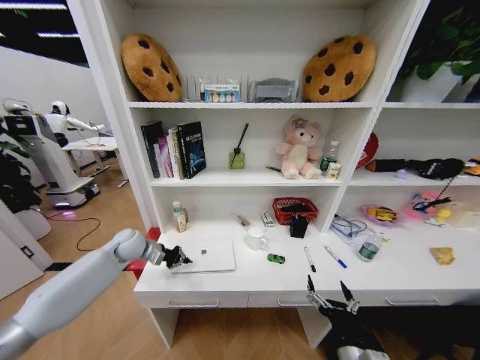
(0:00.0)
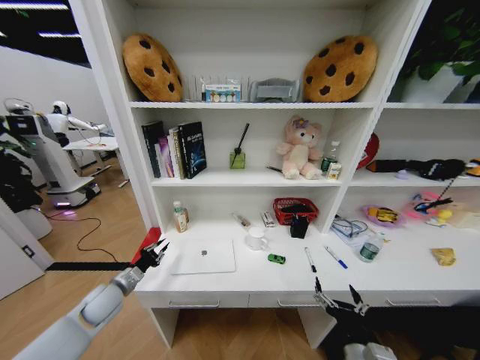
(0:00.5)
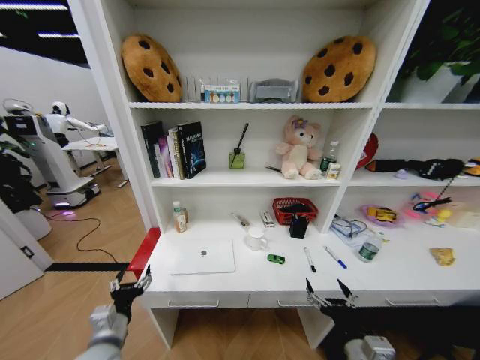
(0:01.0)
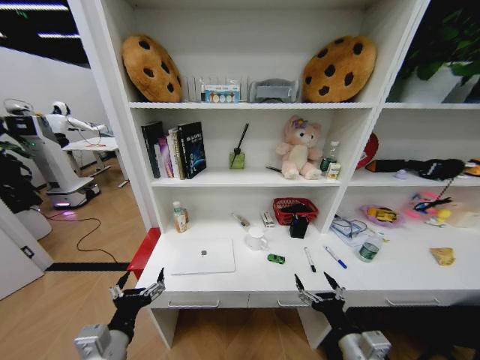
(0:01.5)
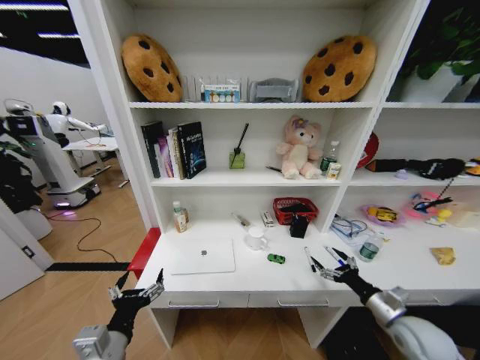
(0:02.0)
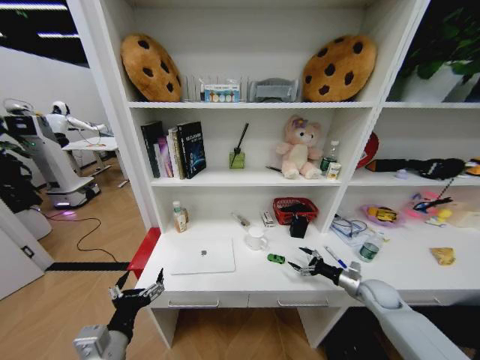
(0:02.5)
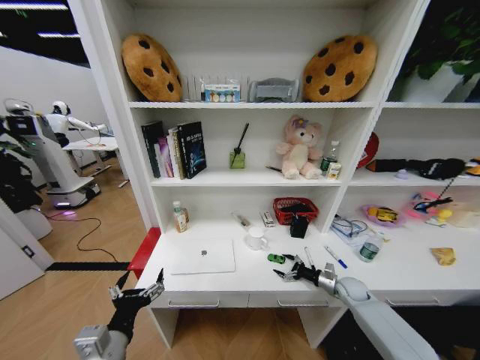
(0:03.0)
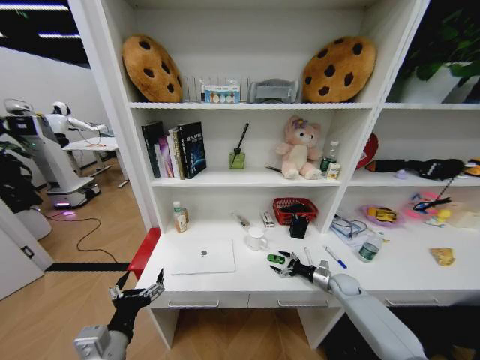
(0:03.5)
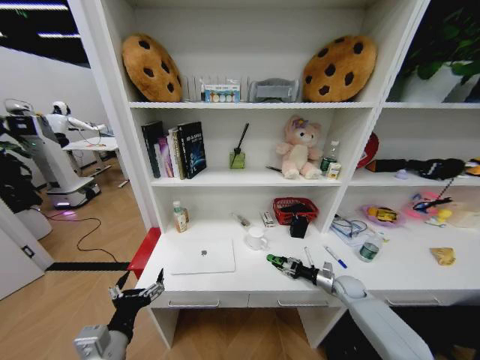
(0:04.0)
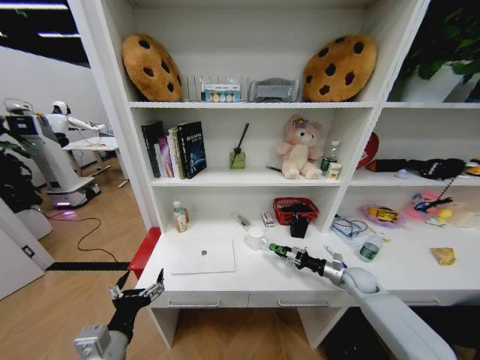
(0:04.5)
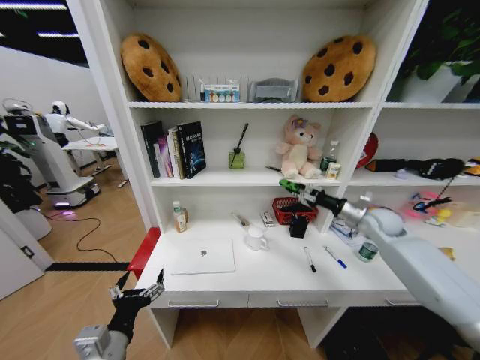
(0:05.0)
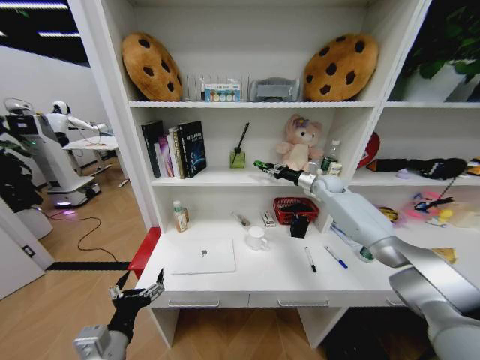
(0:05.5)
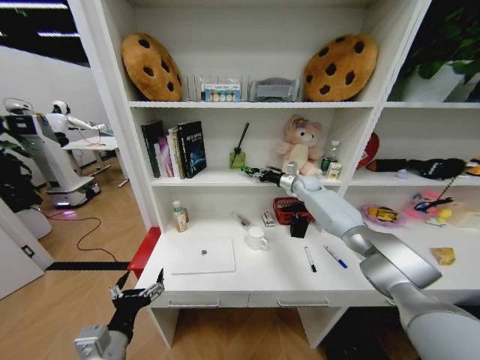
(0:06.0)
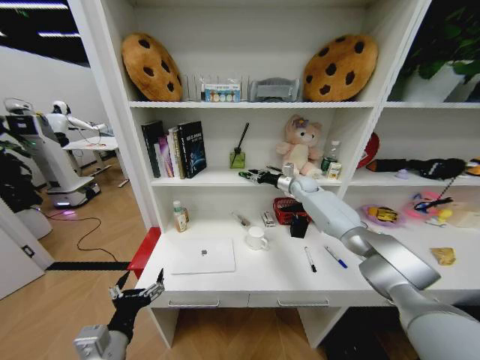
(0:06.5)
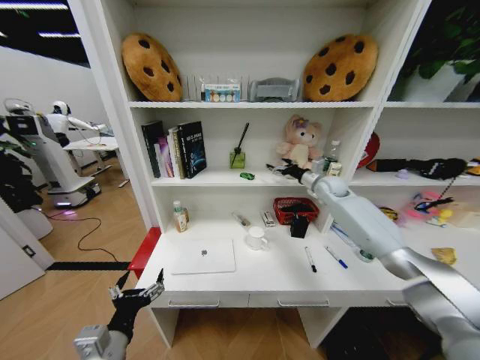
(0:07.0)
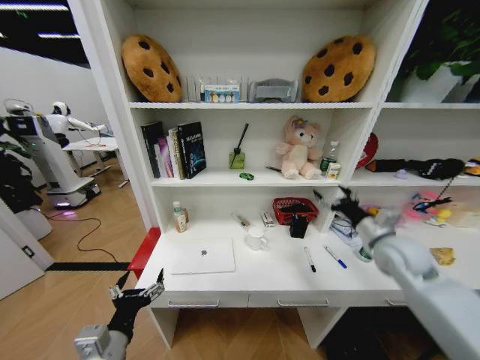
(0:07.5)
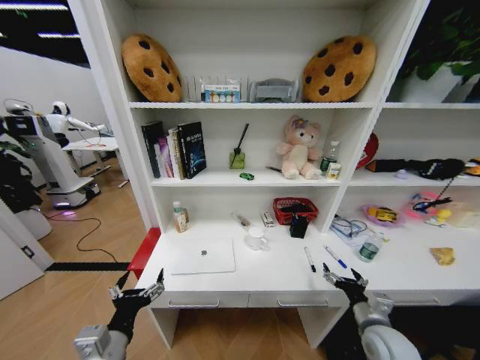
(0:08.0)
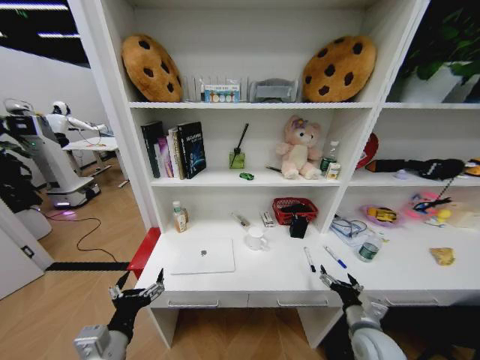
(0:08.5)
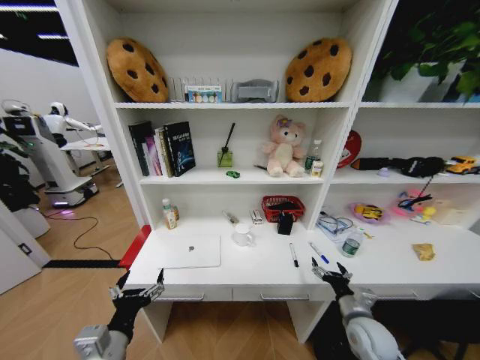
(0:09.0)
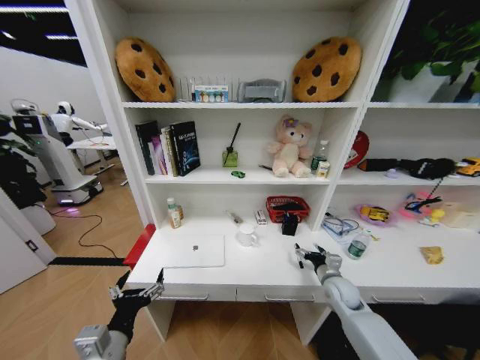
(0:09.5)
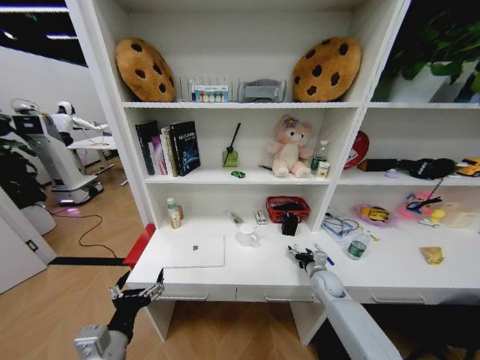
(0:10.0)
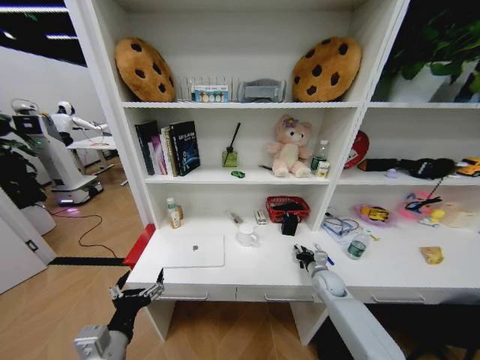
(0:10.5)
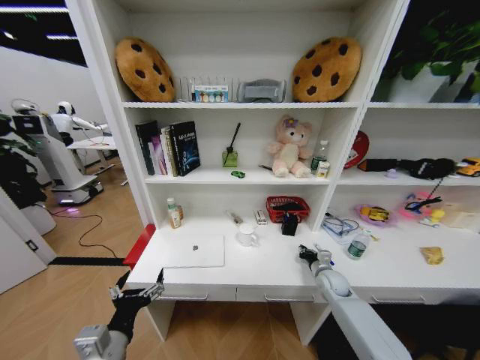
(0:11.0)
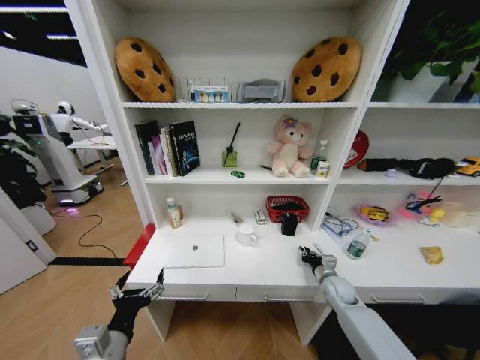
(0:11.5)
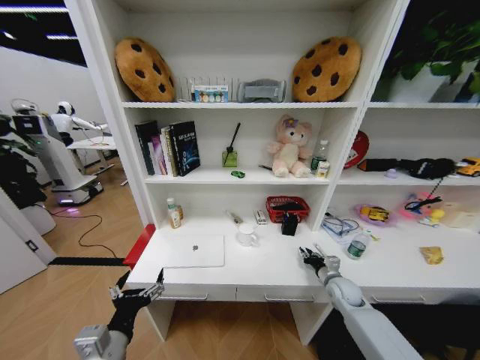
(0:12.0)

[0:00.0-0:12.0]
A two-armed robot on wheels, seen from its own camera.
Task of the whole recording: Organize the objects on the table.
0:00.0 to 0:02.0: The right gripper is displaced to the right and forward by some 20 cm, while the left gripper moves backward, about 35 cm, and opens.
0:02.0 to 0:04.0: The right gripper goes roughly 20 cm forward and downward, and closes up.
0:04.0 to 0:06.0: The right gripper moves upward, forward and to the left, roughly 40 cm.
0:06.0 to 0:08.0: The right gripper travels backward by about 50 cm, and opens its fingers.
0:08.0 to 0:10.0: The right gripper travels forward by some 20 cm.
0:10.0 to 0:12.0: The right gripper closes.

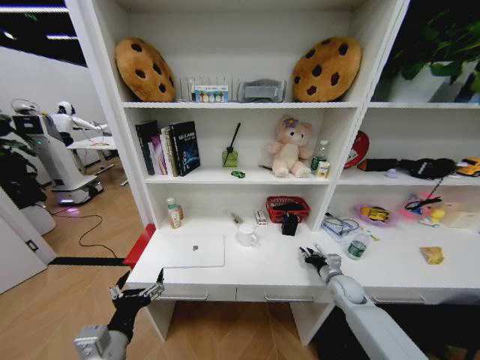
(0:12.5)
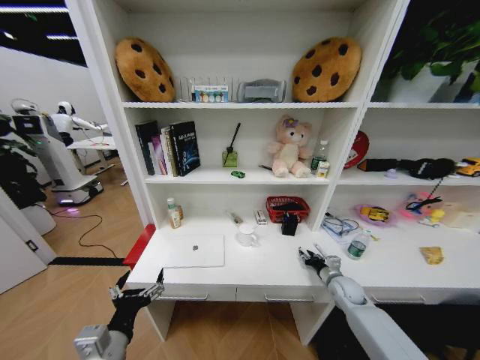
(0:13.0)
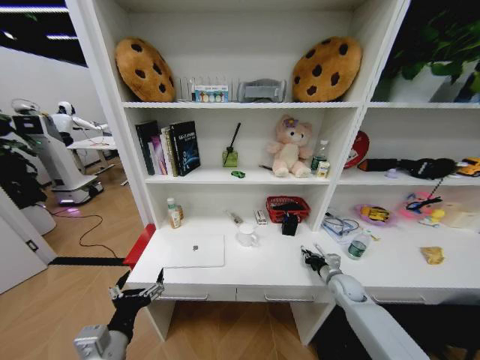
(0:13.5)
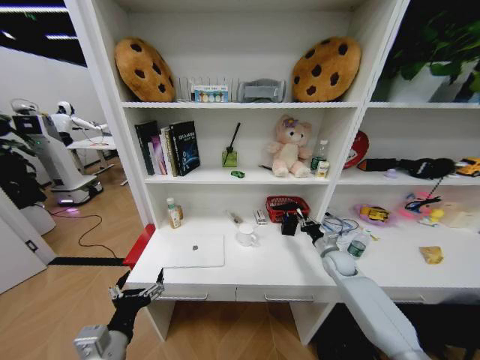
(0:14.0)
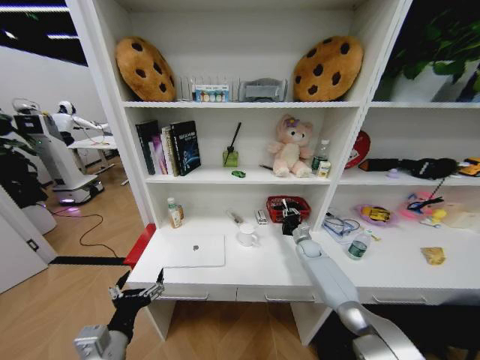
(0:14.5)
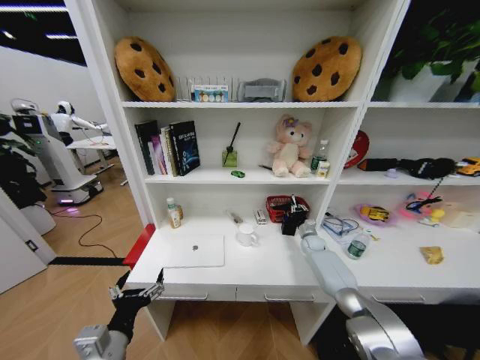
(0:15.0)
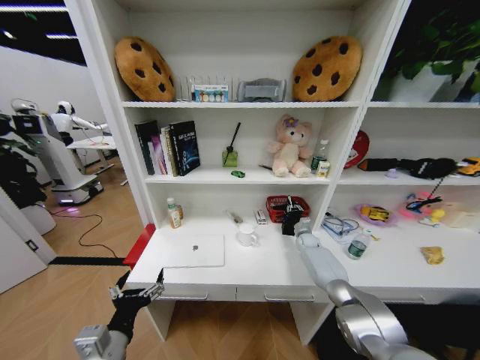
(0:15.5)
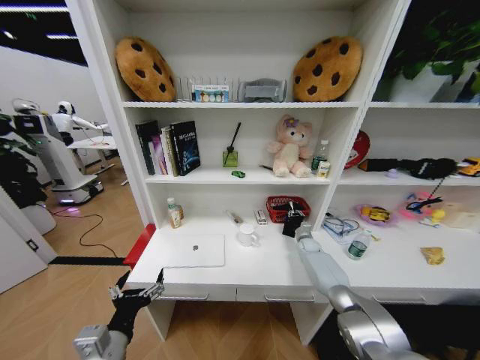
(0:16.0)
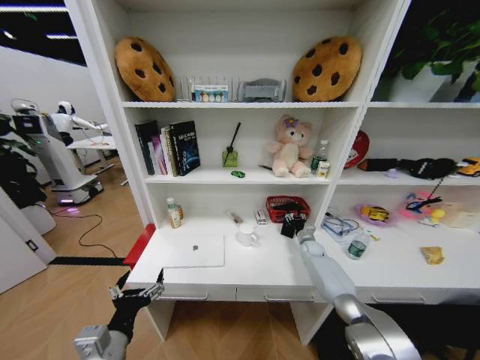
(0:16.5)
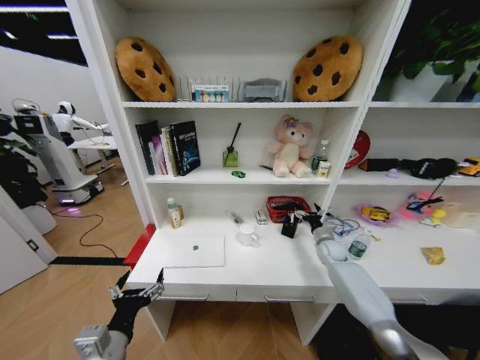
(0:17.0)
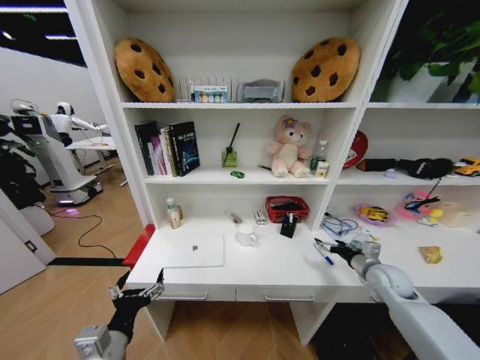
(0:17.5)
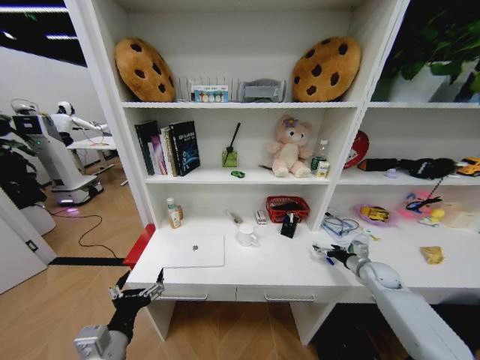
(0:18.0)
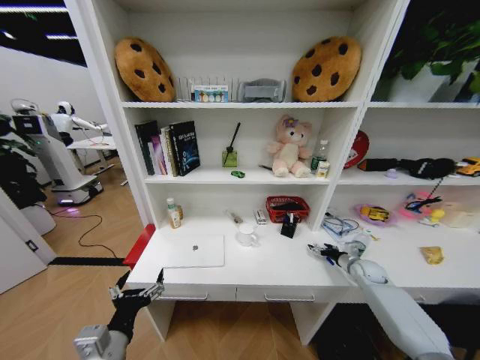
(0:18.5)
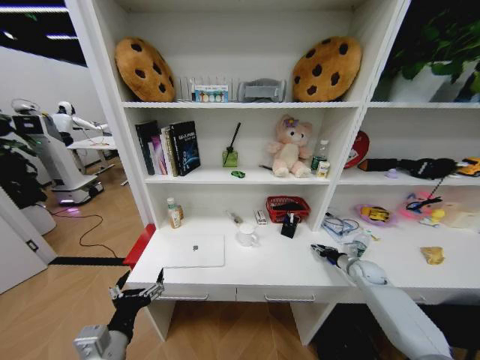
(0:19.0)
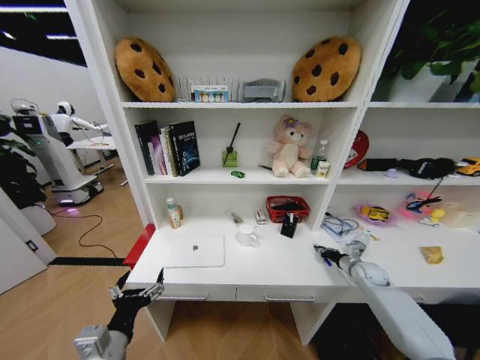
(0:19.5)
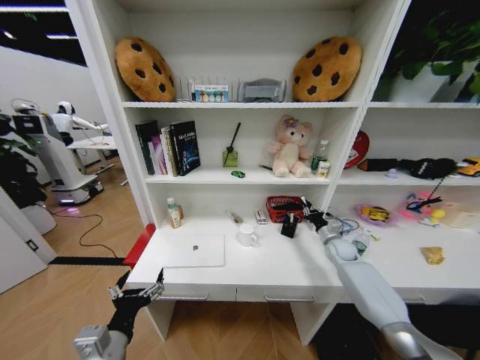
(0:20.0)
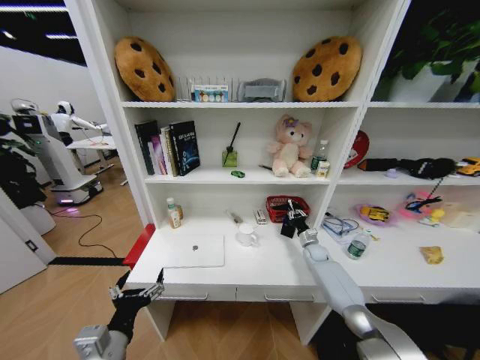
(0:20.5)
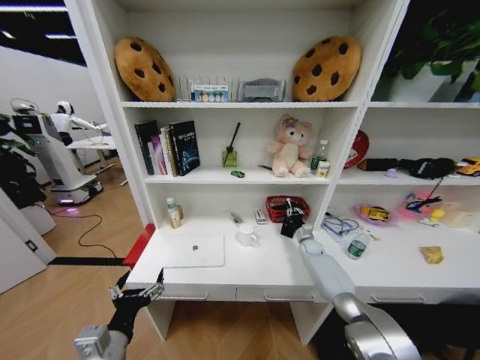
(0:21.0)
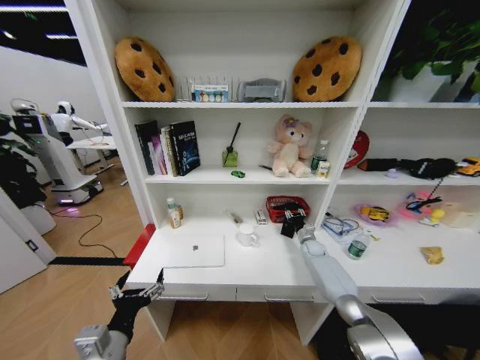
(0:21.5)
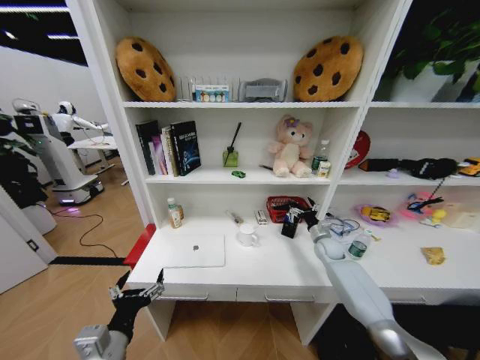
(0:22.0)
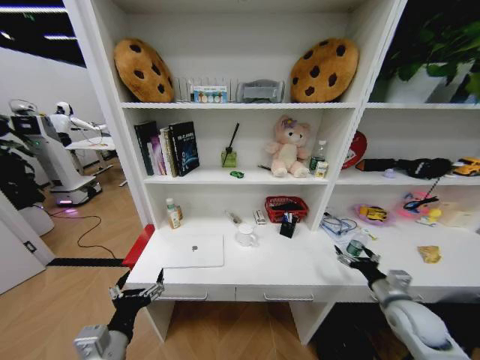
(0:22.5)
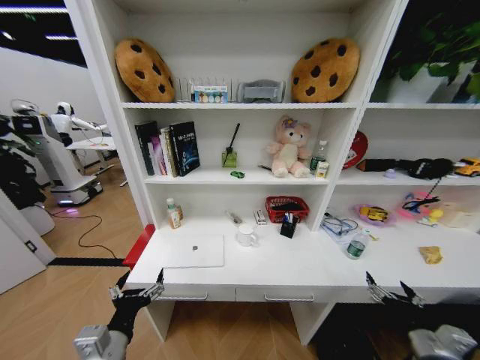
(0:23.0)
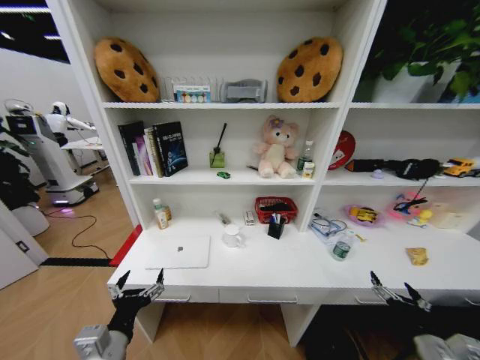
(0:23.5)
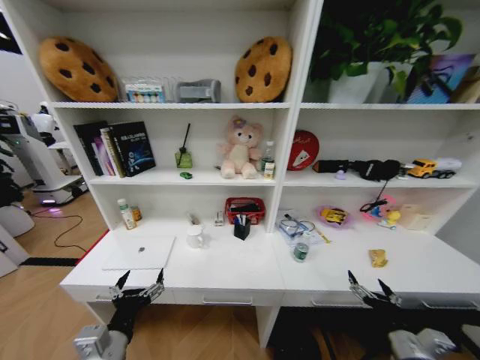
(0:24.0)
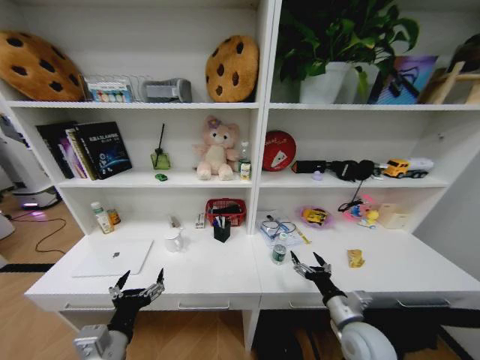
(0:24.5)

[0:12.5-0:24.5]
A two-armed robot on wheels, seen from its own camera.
Task of the whole recording: Organize the objects on the table.
0:12.5 to 0:14.5: The right gripper shifts roughly 15 cm forward.
0:14.5 to 0:16.5: The right gripper opens its fingers.
0:16.5 to 0:18.5: The right gripper goes some 20 cm to the right and backward, and opens.
0:18.5 to 0:20.5: The right gripper heads to the left and forward, covering roughly 15 cm, and closes up.
0:20.5 to 0:22.5: The right gripper travels backward by roughly 30 cm, and opens.
0:22.5 to 0:24.5: The right gripper travels to the left by roughly 15 cm.

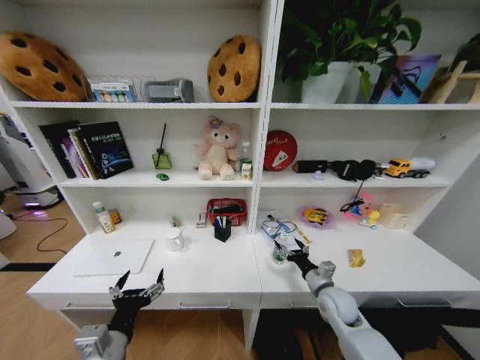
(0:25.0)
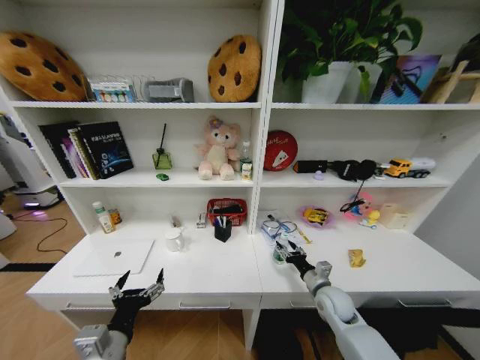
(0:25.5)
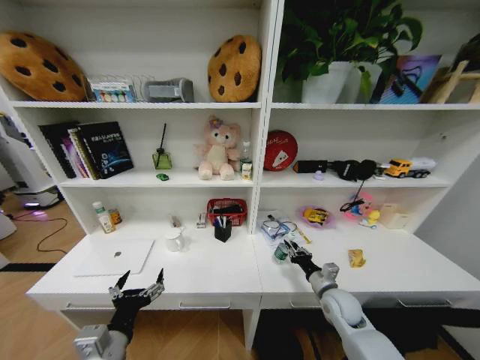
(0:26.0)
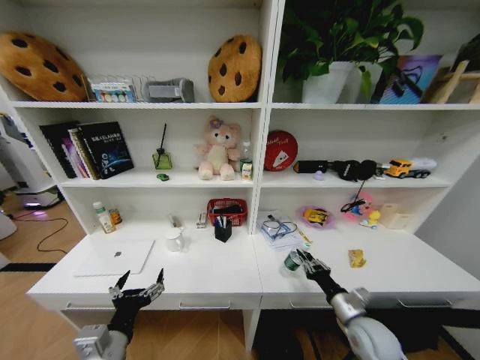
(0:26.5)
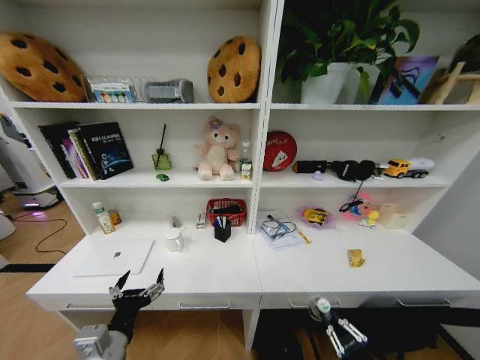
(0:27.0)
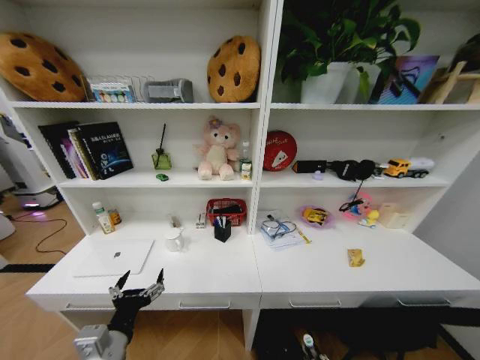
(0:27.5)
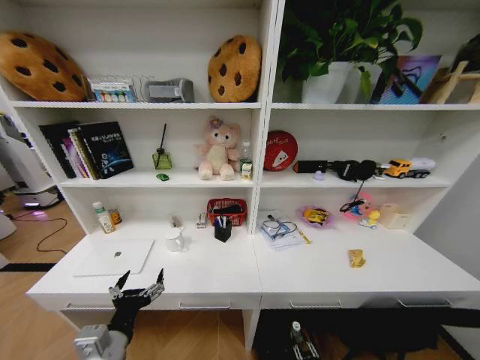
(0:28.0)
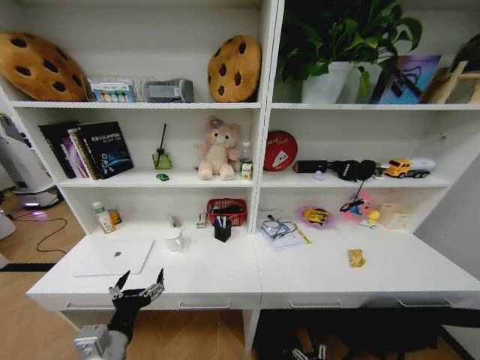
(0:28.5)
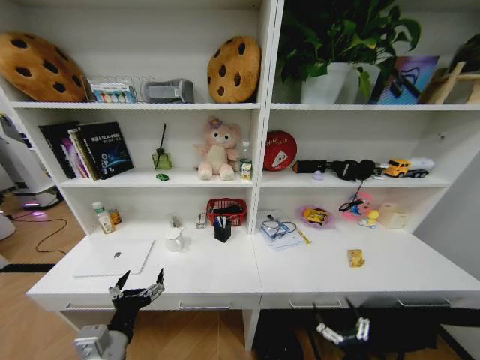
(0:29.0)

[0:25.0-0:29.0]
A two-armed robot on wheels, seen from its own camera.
Task of the whole recording: Organize the objects on the table.
0:25.0 to 0:27.0: The right gripper shifts about 25 cm backward, and closes its fingers.
0:27.0 to 0:29.0: The right gripper goes downward and returns, roughly 30 cm each way, and opens its fingers.
